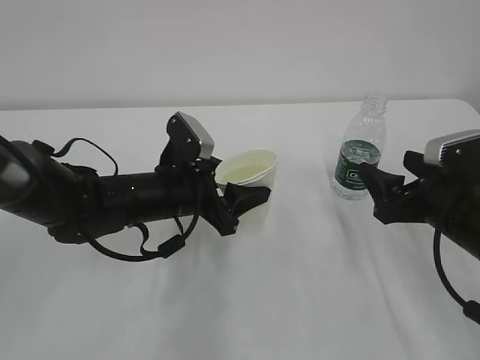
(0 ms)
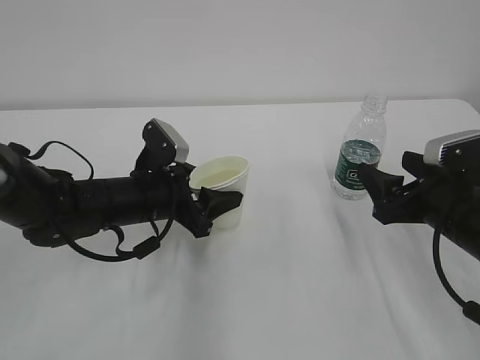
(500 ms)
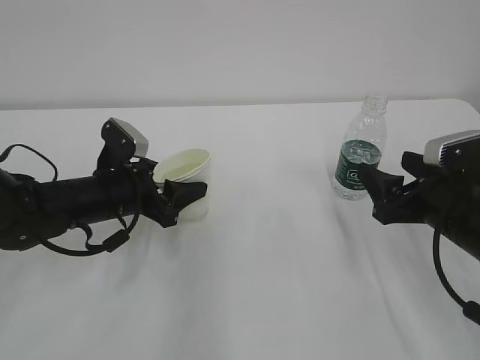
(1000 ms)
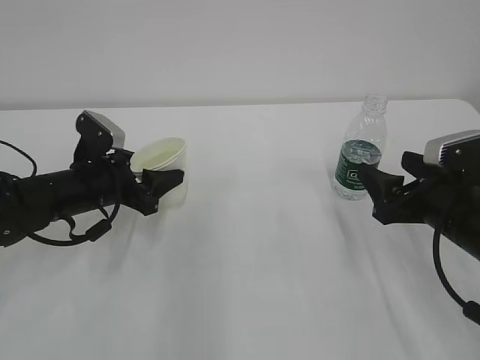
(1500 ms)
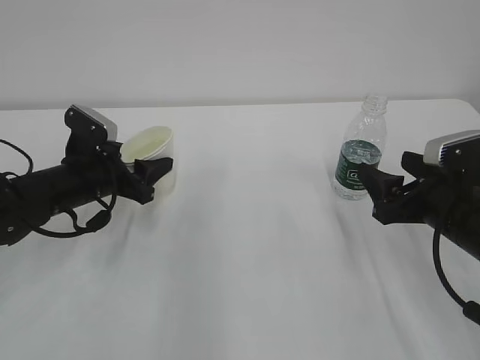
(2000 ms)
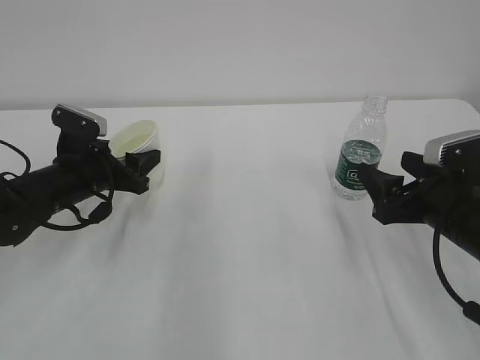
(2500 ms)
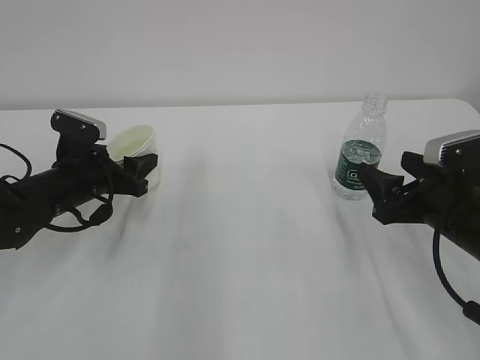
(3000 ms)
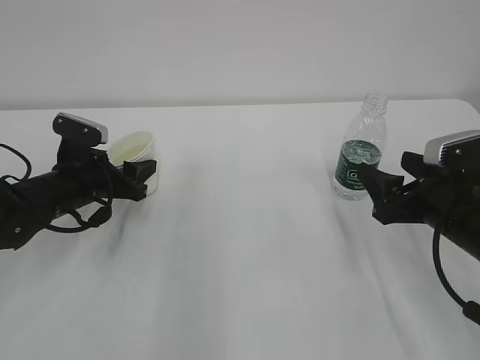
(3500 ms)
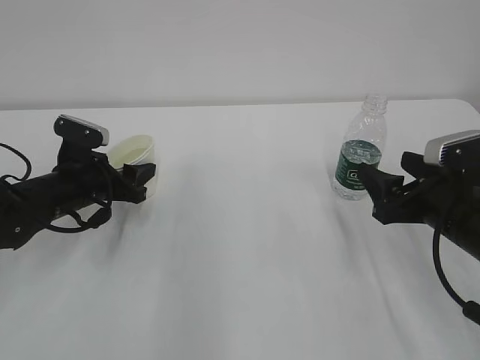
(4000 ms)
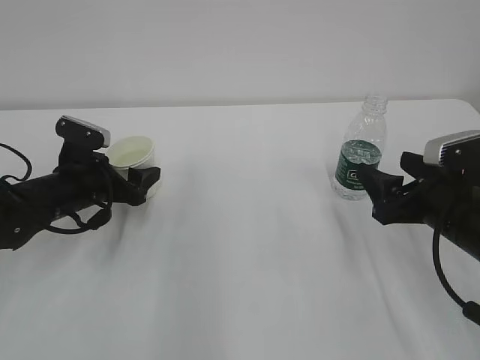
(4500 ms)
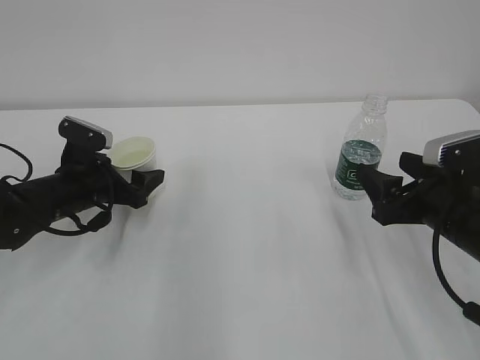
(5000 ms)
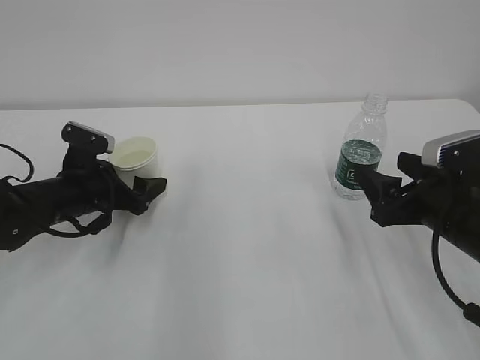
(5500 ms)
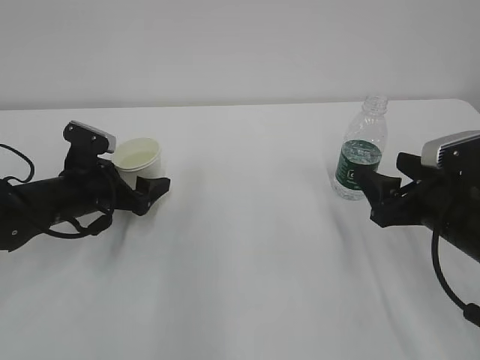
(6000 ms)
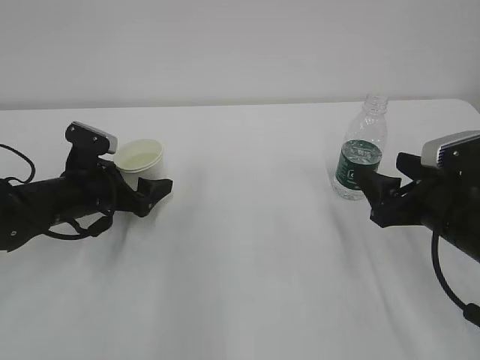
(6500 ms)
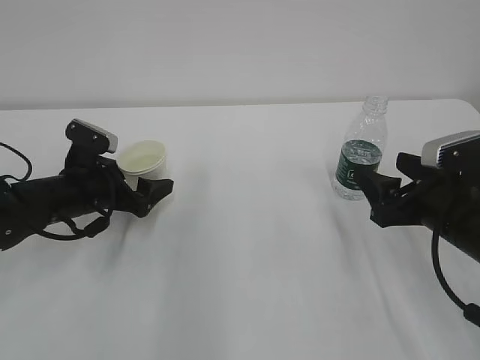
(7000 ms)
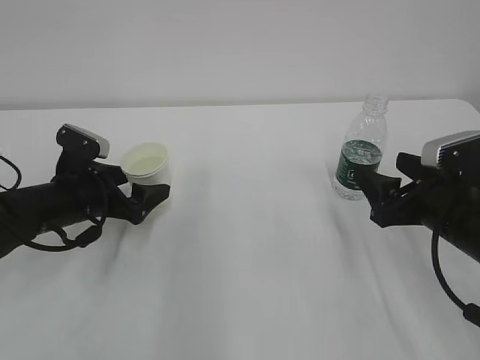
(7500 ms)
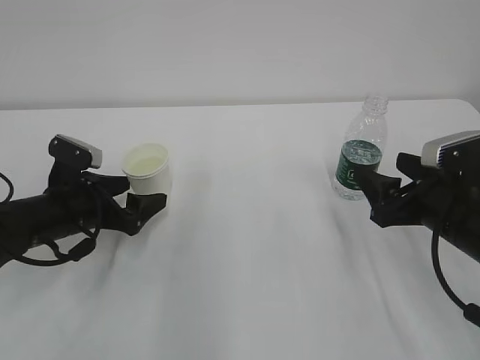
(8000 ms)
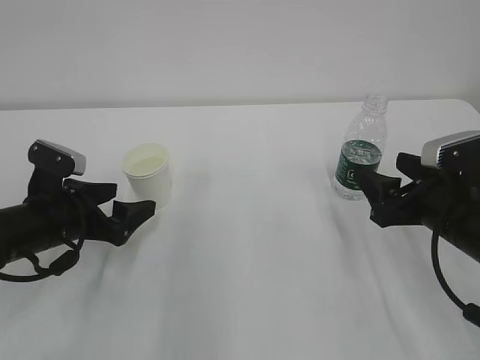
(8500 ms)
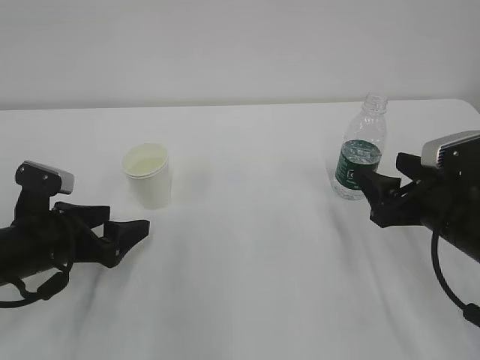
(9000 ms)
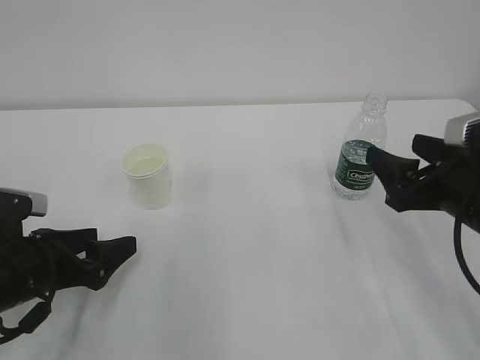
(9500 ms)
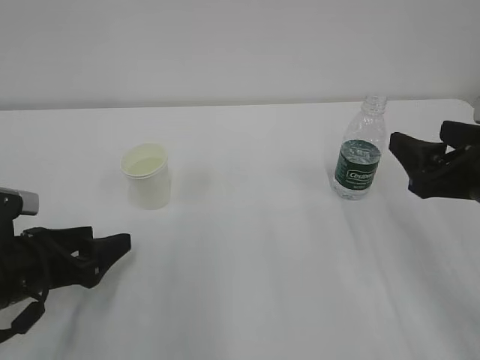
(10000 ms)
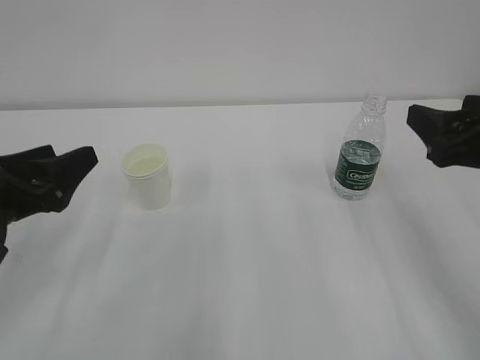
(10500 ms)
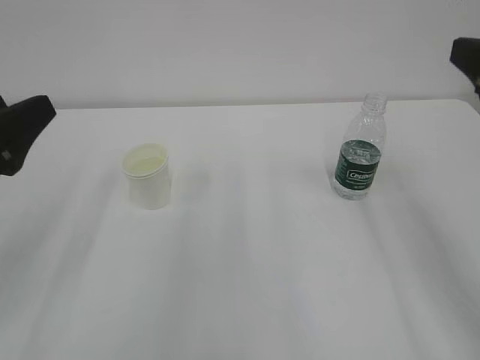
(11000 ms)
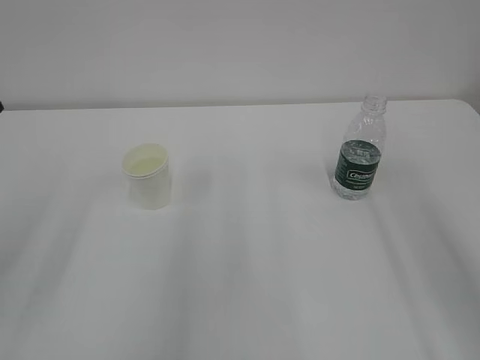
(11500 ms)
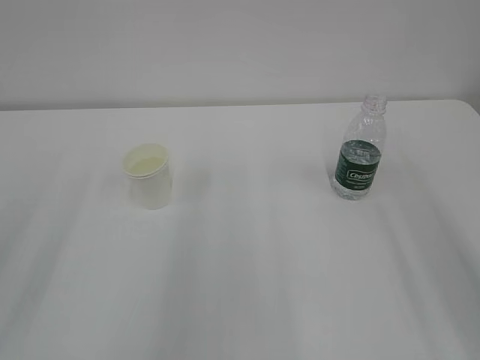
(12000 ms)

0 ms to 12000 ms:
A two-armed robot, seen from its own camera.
0 ms to 2000 ms: The left gripper is displaced to the left by roughly 10 cm.
2000 ms to 4000 ms: The grippers move only a little.
4000 ms to 6000 ms: The left gripper opens.
6000 ms to 8000 ms: There are only small adjustments of the grippers.
8000 ms to 10000 ms: The left gripper is displaced backward by approximately 10 cm. The right gripper is displaced upward by approximately 5 cm.
10000 ms to 12000 ms: Both grippers move upward and backward, roughly 20 cm.
